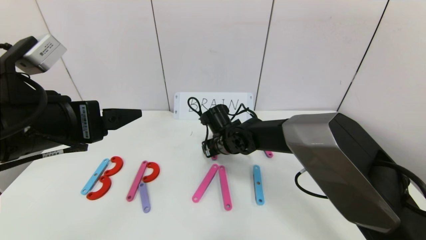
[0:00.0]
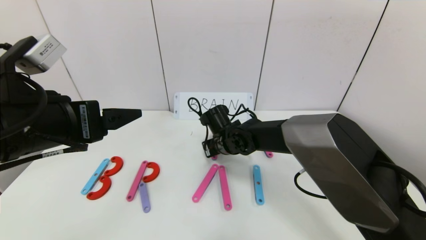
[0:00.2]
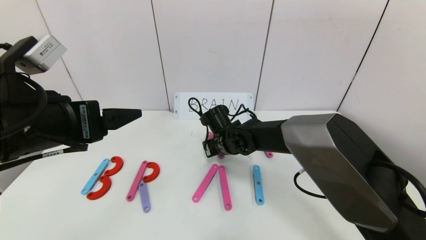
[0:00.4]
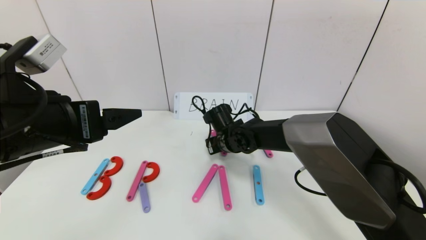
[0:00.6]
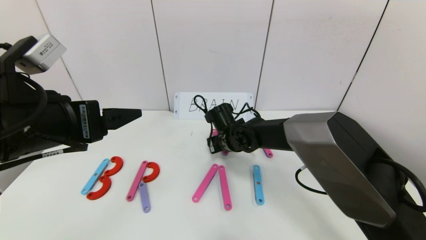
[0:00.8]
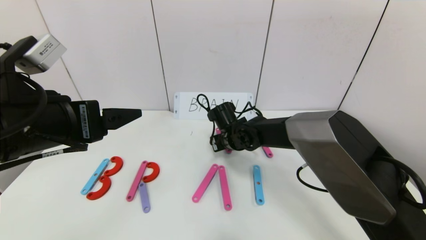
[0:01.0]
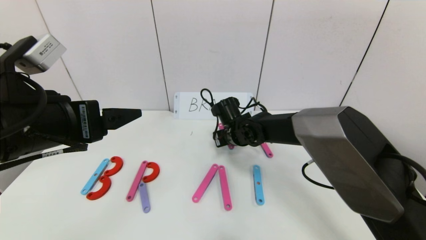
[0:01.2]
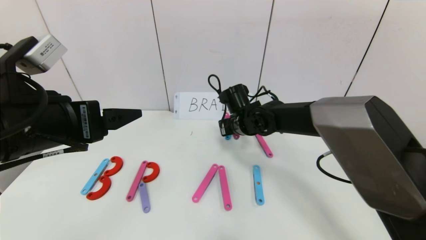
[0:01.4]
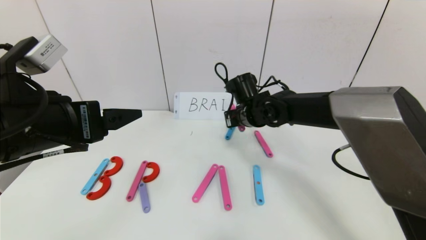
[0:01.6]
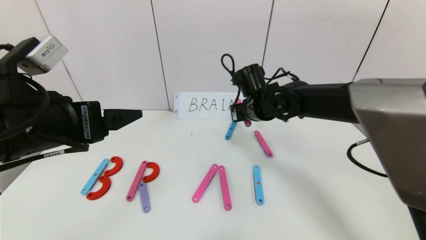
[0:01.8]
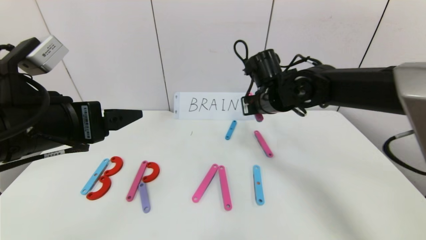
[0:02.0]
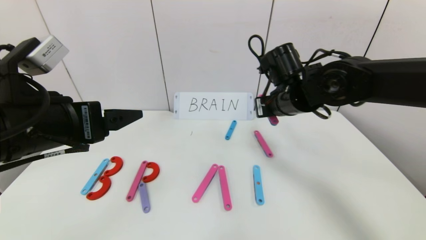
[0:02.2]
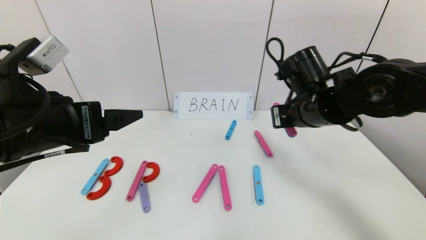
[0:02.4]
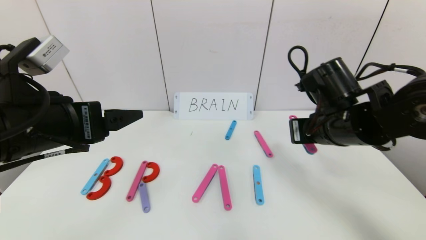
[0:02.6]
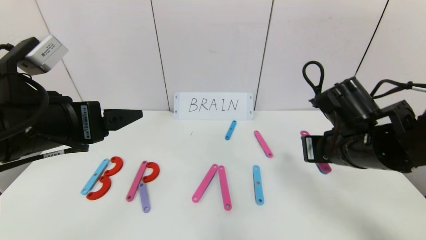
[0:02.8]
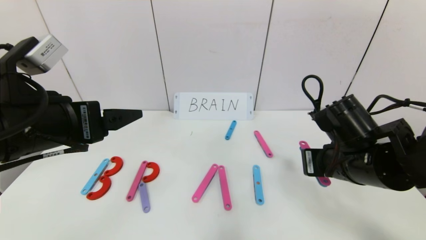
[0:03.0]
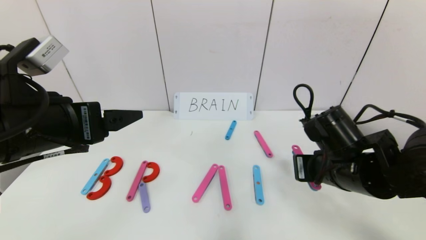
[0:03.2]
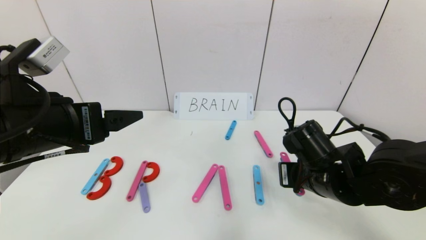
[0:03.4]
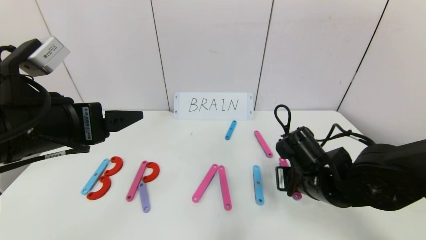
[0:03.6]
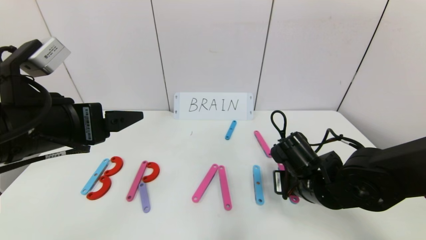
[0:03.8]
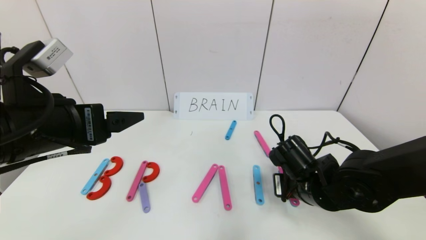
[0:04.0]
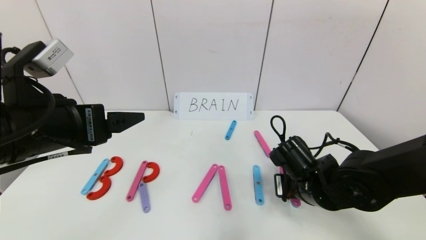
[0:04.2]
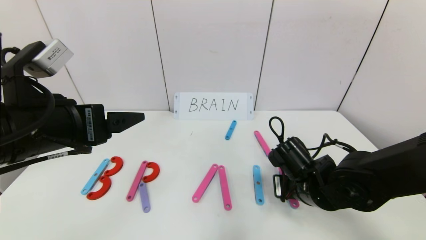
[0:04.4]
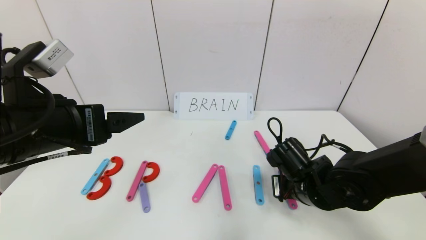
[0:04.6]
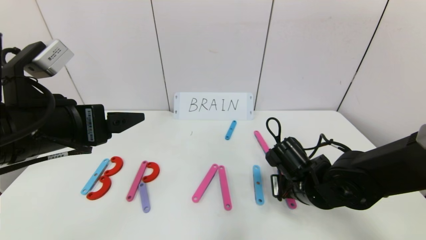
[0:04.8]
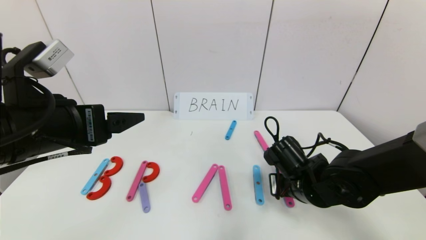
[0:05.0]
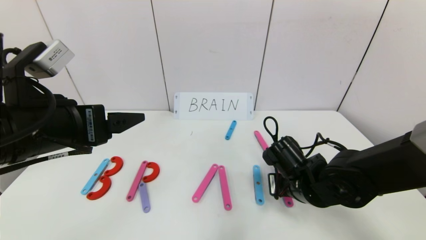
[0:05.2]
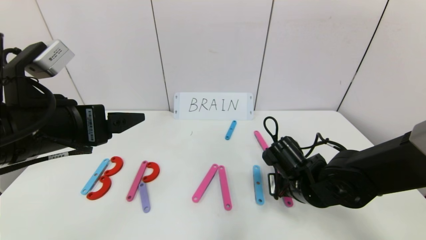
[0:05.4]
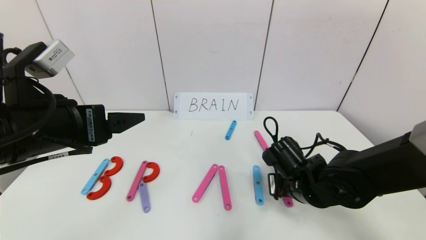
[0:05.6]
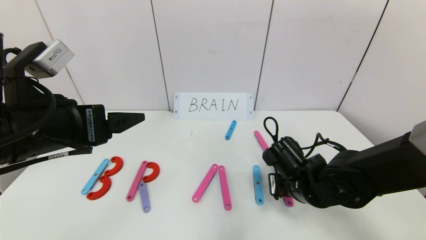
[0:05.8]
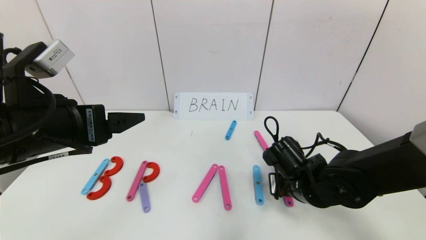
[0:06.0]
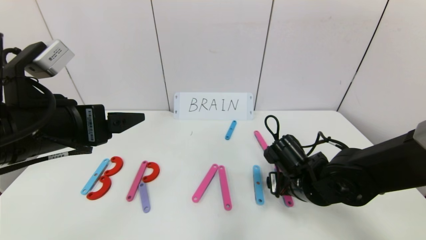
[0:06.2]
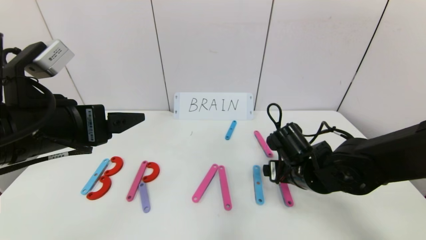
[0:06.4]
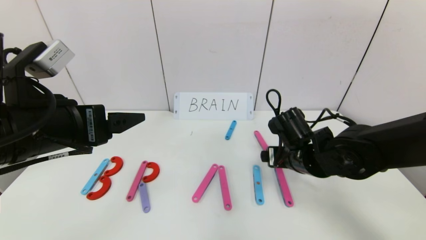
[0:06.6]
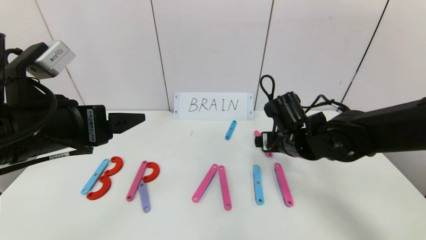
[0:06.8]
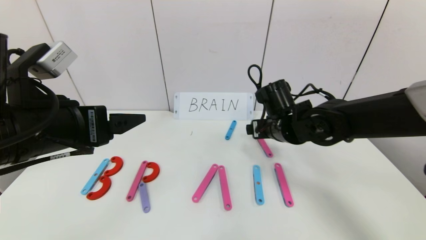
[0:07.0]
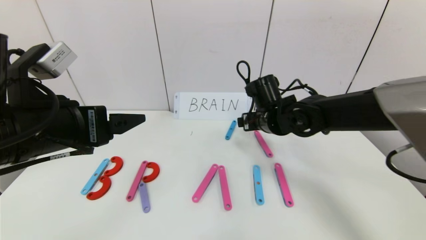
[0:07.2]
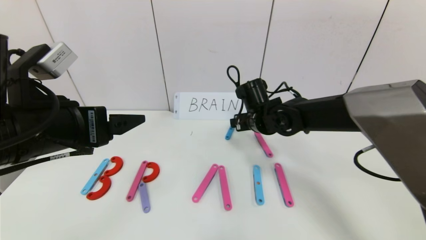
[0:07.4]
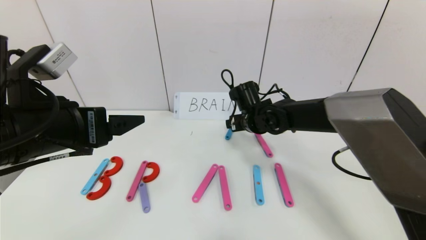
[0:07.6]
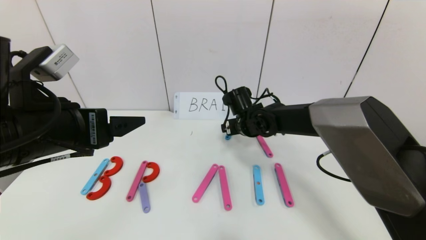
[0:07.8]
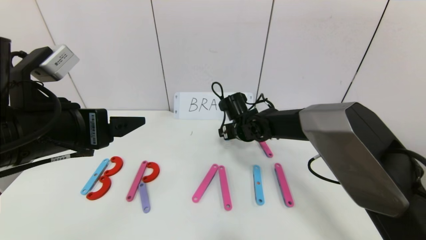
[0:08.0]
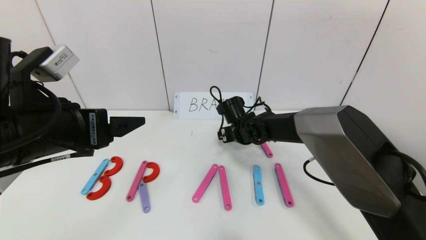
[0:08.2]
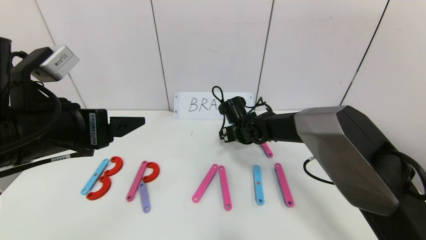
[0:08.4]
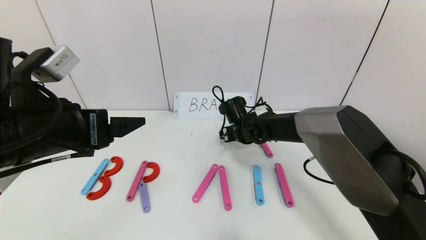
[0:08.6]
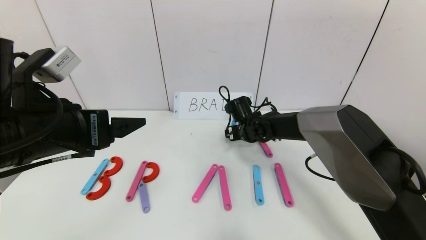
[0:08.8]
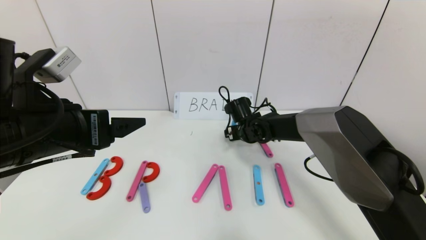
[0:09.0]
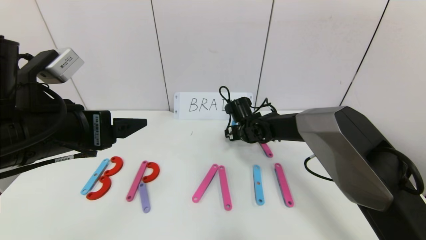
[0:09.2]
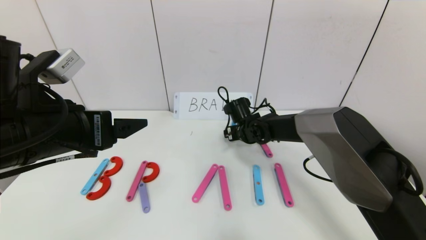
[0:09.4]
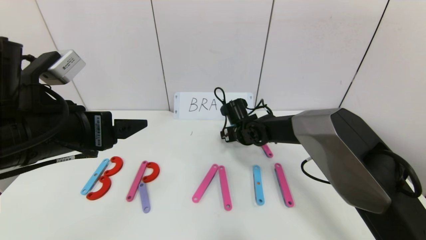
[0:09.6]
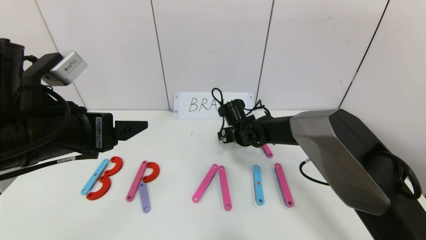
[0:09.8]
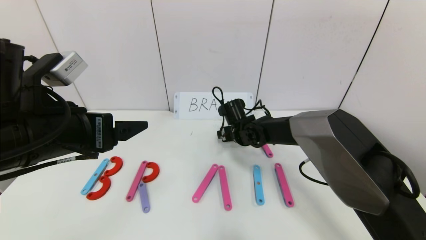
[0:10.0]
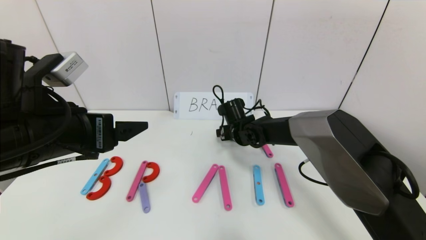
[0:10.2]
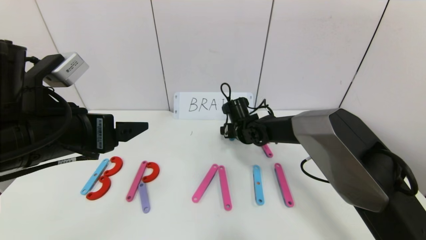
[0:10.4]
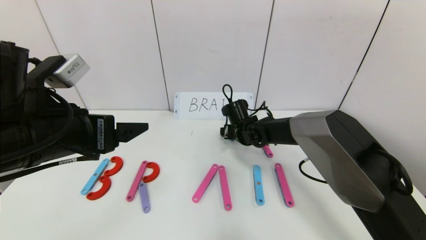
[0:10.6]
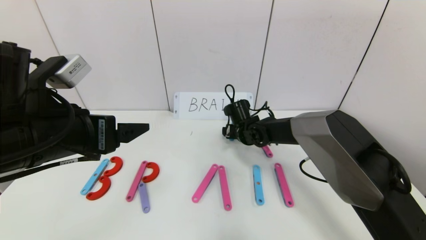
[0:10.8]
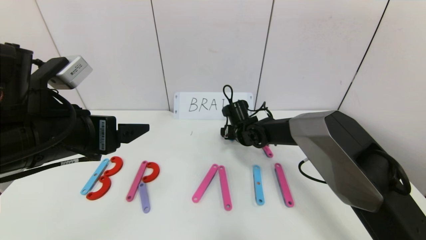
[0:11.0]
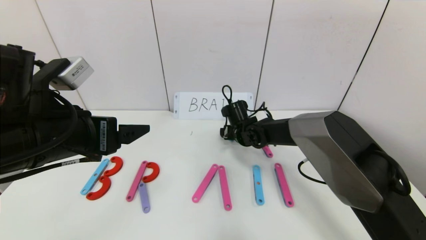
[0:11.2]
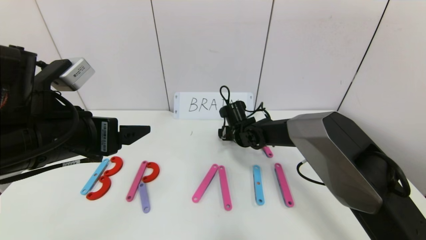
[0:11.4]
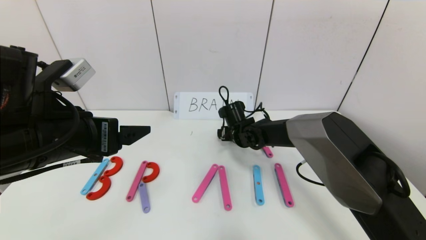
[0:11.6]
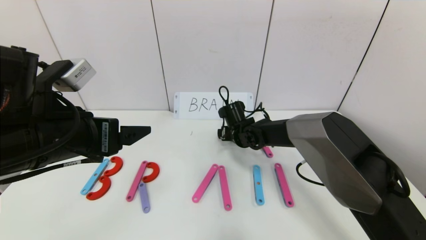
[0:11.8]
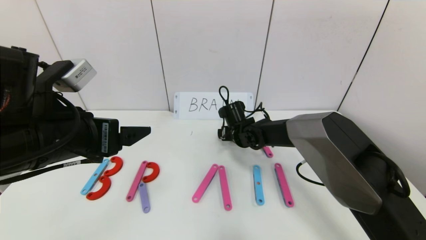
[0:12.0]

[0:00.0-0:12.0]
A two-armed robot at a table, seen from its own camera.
Task of the whole recording: rearrange the word baai as brain.
0:00.0 to 0:01.6: The right gripper is displaced upward and to the right by about 10 cm, and closes its fingers.
0:01.6 to 0:03.0: The right gripper moves backward and to the right, about 20 cm.
0:03.0 to 0:04.4: The right gripper travels downward by about 10 cm.
0:04.4 to 0:06.0: The right gripper opens.
0:06.0 to 0:07.6: The right gripper heads forward and to the left, covering approximately 15 cm, and opens its fingers.
0:07.6 to 0:09.0: The right gripper shifts some 5 cm downward.
0:09.0 to 0:10.4: There are only small adjustments of the grippers.
0:10.4 to 0:12.0: Both grippers stay about where they are.

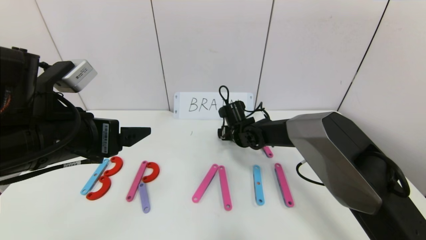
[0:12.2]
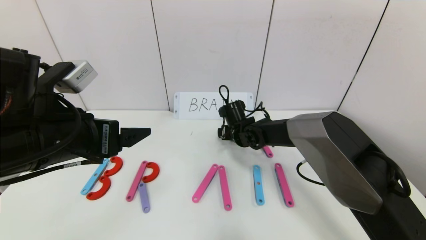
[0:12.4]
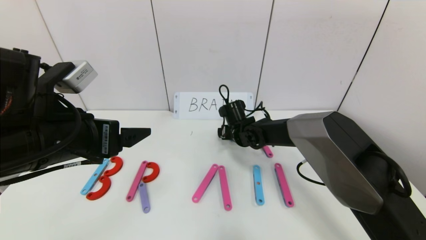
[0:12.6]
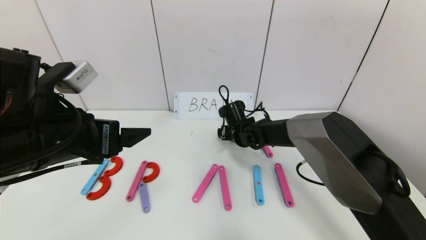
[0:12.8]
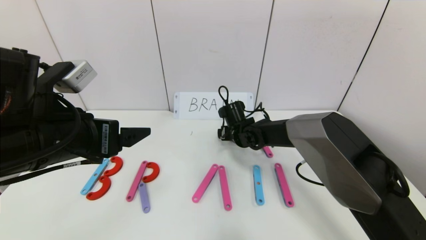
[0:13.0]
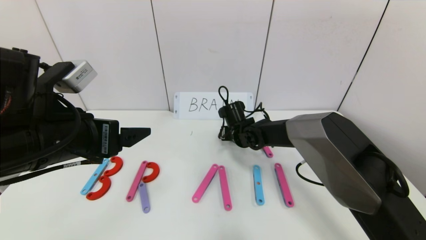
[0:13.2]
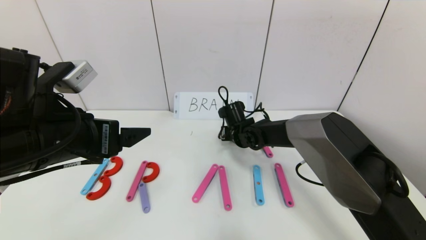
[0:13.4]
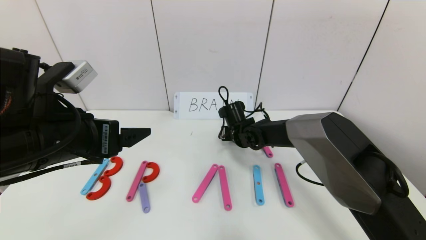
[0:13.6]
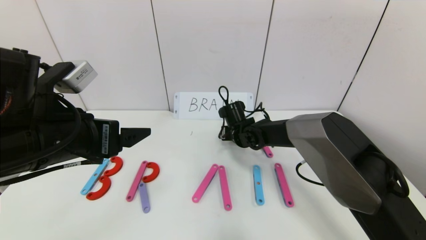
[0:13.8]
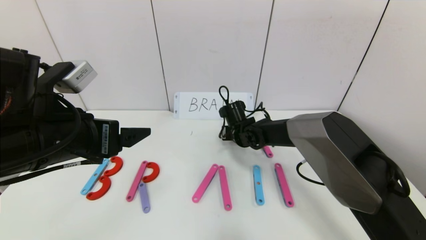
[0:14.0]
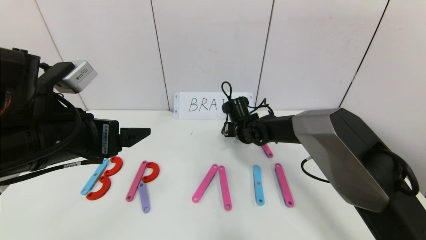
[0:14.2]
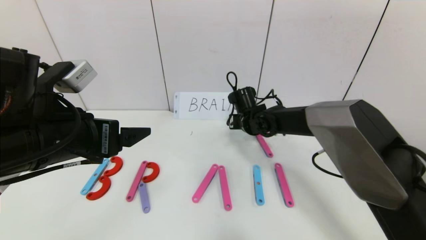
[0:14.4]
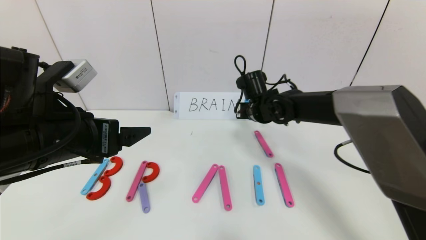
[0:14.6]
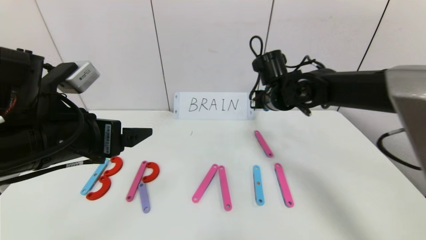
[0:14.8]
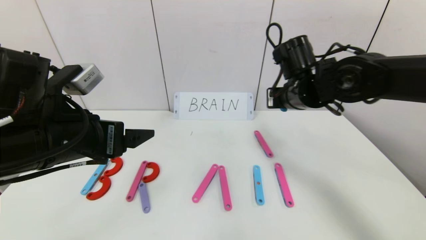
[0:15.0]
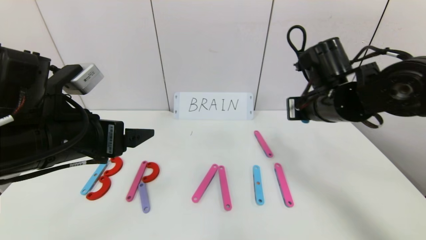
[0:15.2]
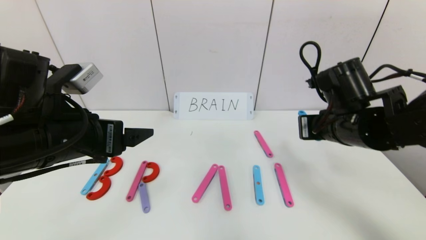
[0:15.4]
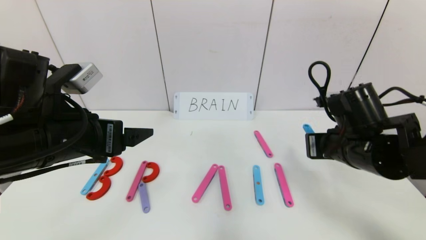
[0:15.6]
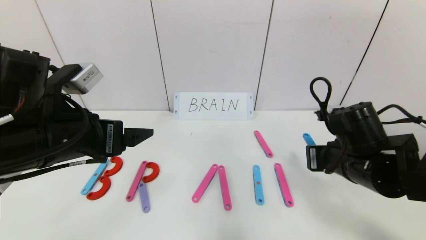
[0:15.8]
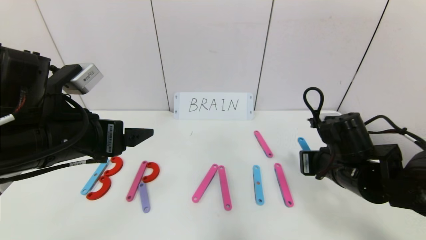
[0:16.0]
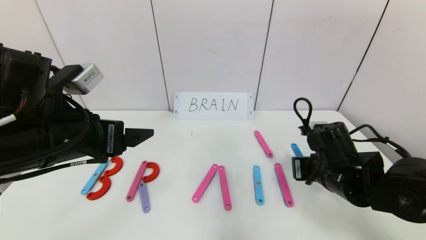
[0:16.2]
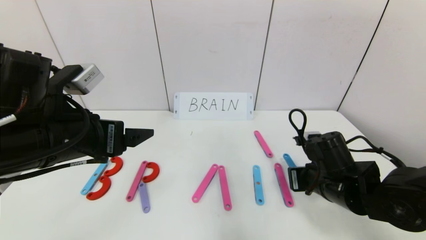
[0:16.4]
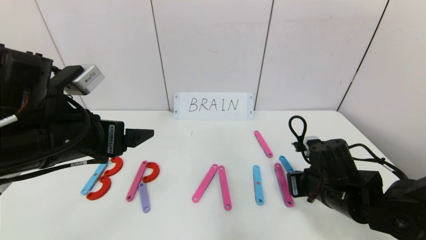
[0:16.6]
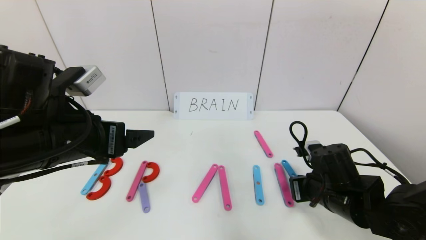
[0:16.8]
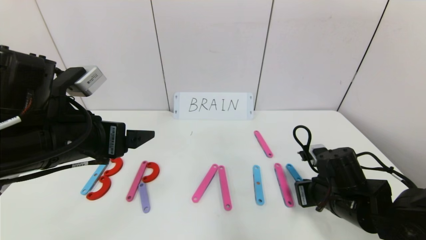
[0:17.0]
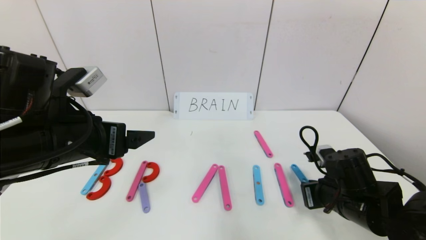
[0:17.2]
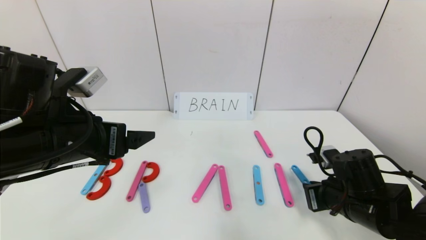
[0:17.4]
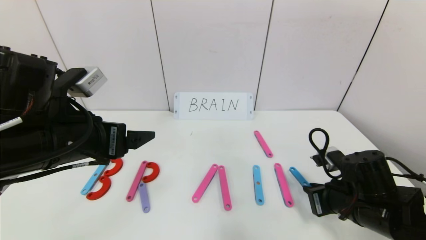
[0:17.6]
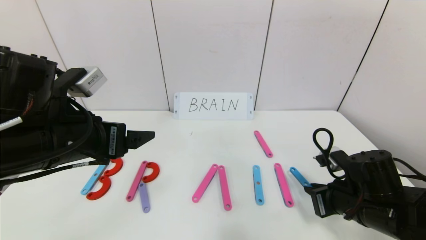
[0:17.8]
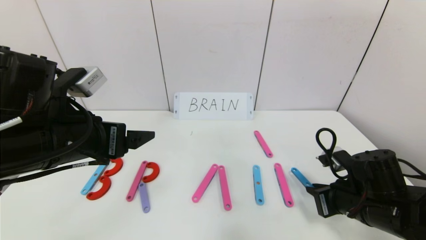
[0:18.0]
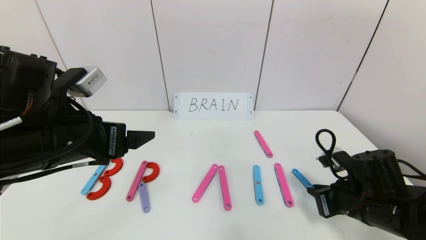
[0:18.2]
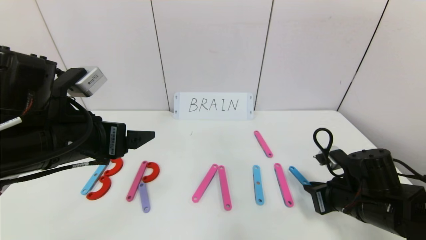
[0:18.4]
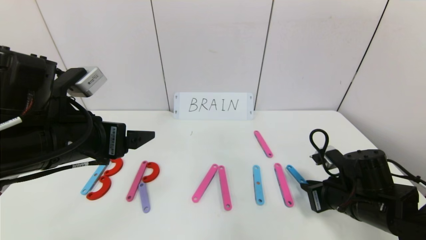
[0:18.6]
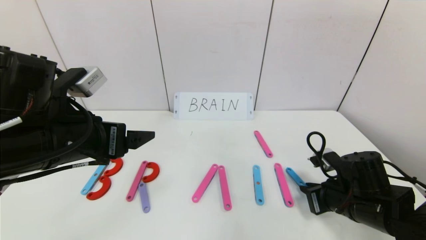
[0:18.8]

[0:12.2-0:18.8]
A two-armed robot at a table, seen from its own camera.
Task of the whole recording: rearrange the word baai as brain.
0:13.8 to 0:15.4: The right gripper travels backward, to the right and upward by roughly 25 cm.
0:15.4 to 0:17.2: The right gripper heads downward, covering roughly 15 cm.
0:17.2 to 0:18.8: The grippers move only a little.
